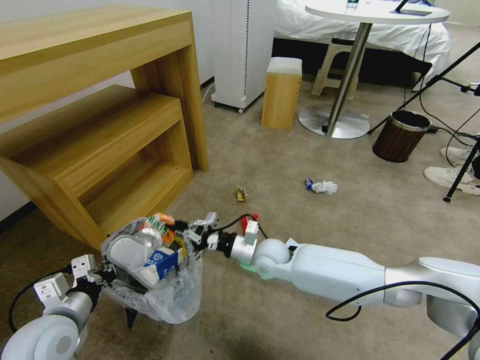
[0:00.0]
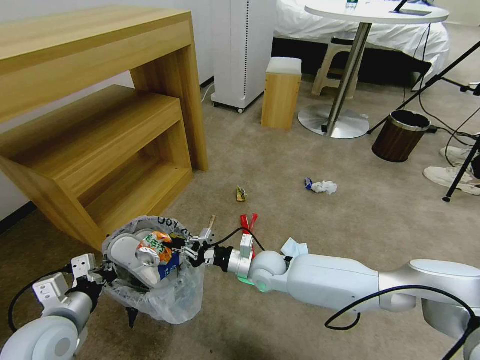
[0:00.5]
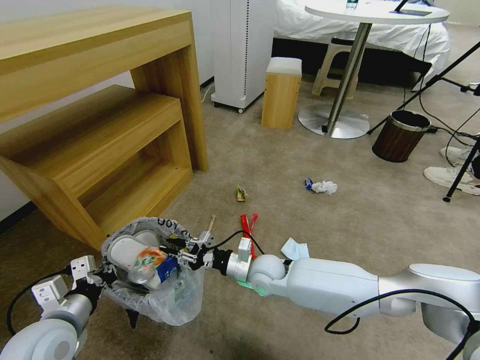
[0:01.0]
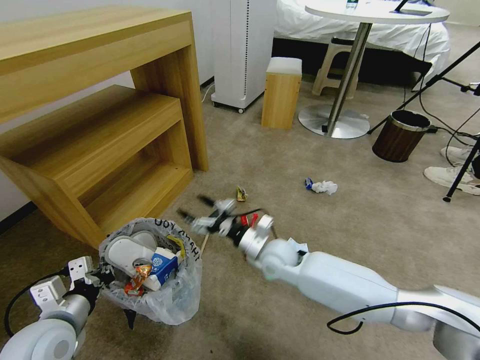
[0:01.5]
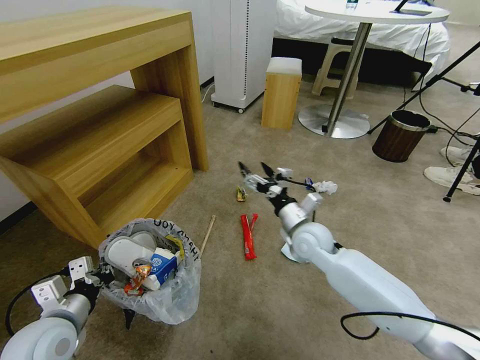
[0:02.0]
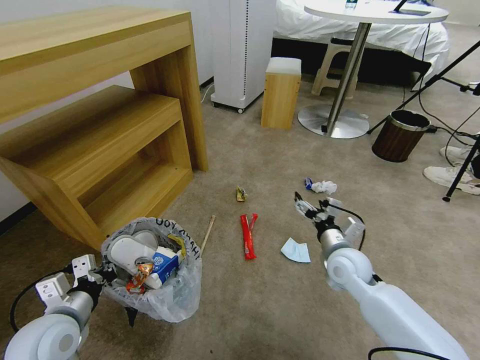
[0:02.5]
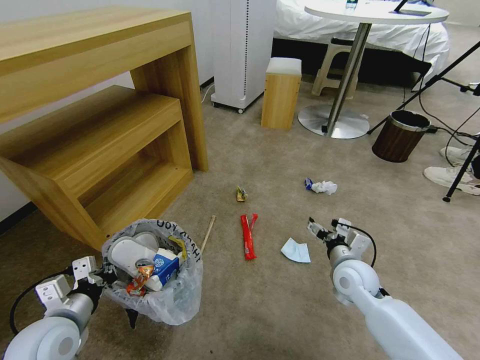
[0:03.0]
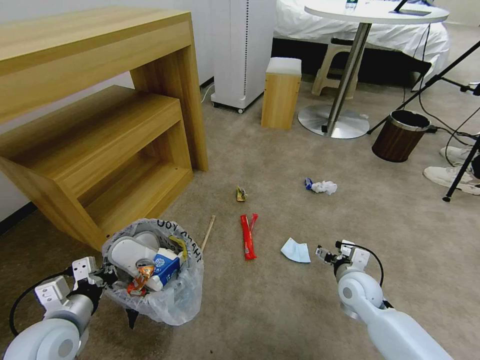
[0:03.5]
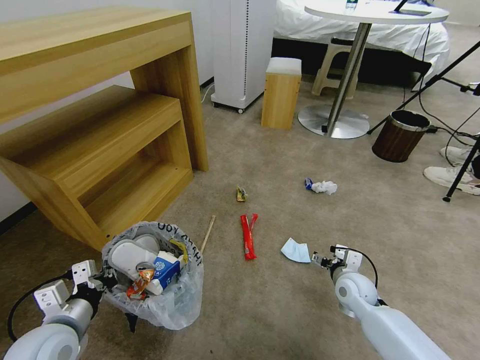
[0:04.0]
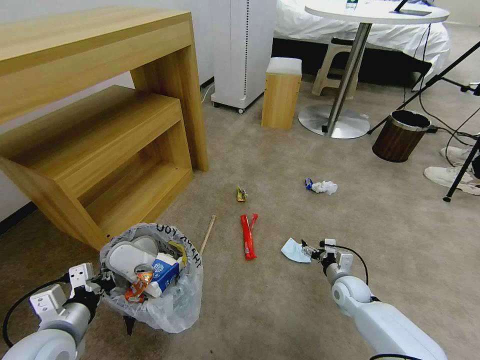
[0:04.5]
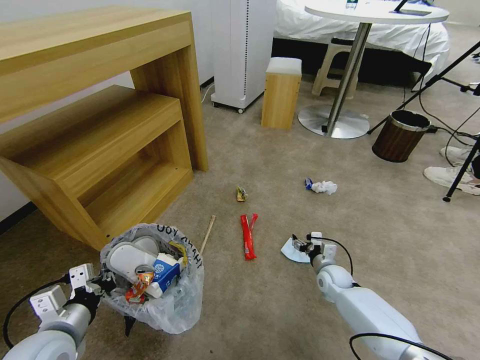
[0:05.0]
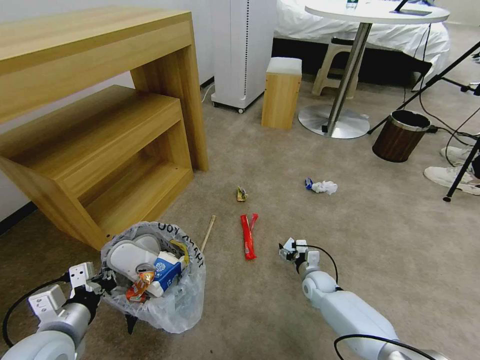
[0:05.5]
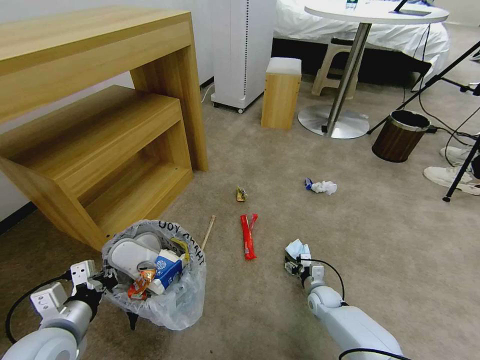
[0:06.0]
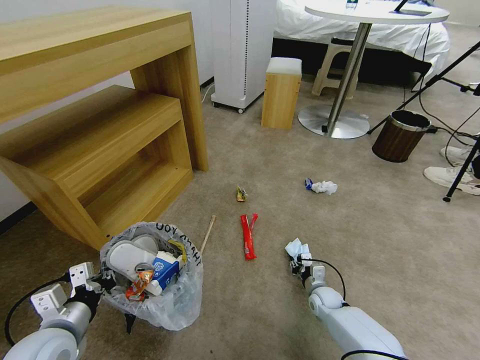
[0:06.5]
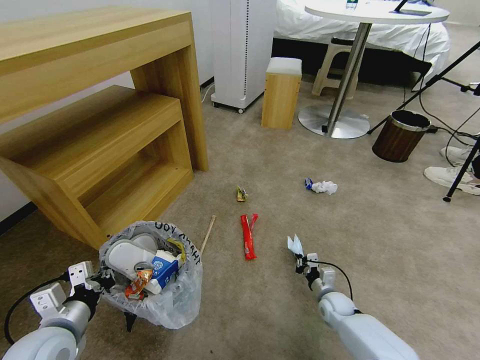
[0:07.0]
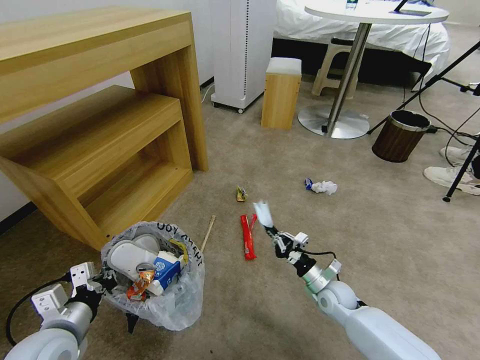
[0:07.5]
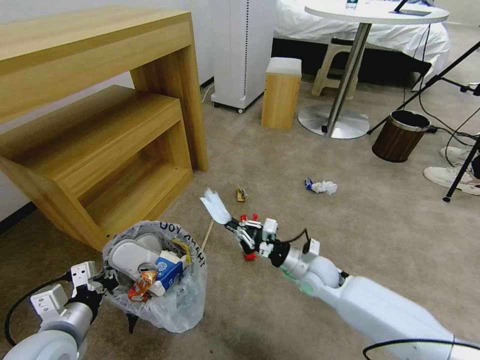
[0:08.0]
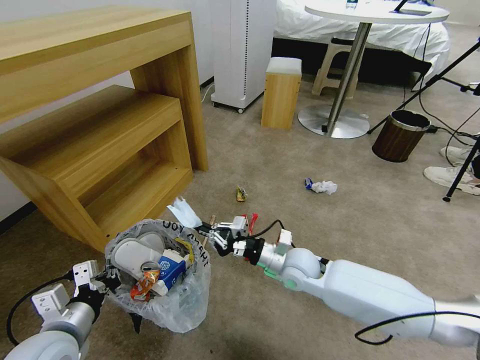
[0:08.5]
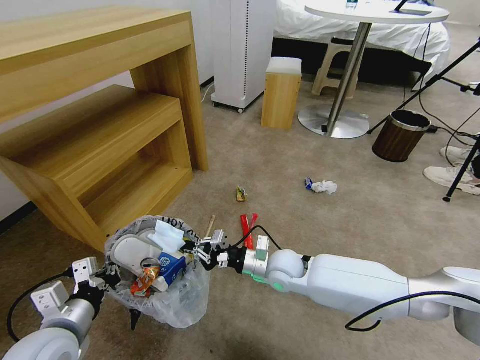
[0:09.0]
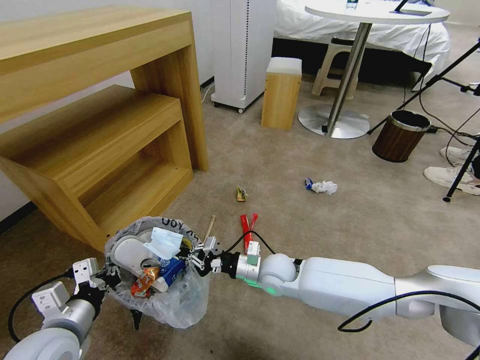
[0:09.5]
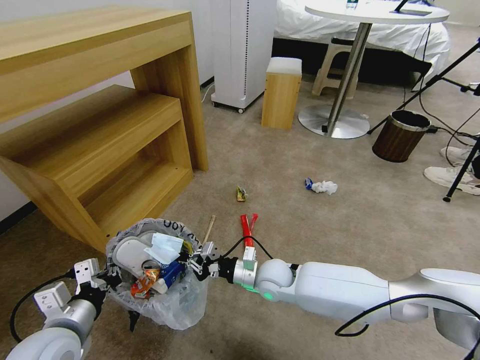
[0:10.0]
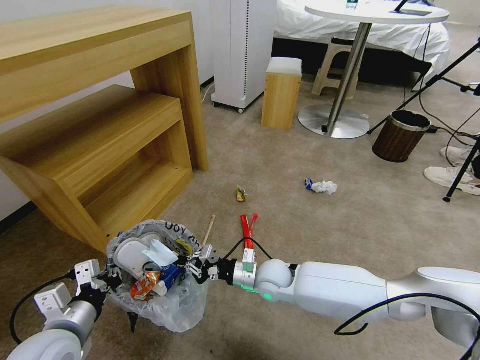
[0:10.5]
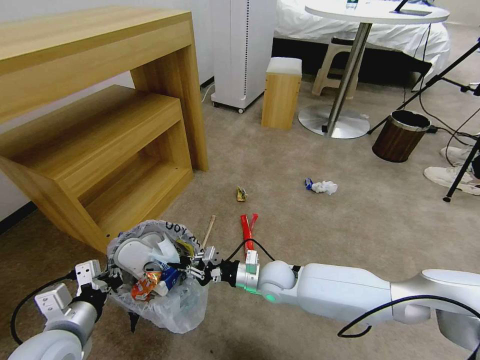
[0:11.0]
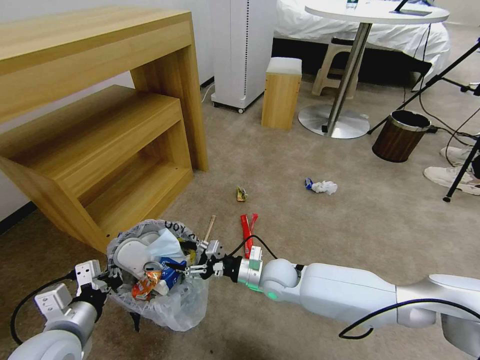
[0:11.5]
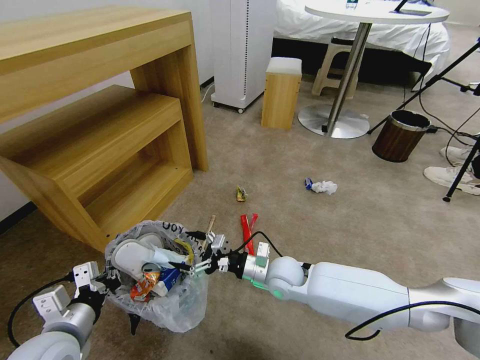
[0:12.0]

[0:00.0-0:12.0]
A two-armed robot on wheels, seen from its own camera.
Task of the whole recording: Pick up the trash bin and place the garbage on the floor into it.
0.0 to 2.0 s: The right gripper heads to the right and upward, covering about 10 cm, and opens up.
2.0 to 4.0 s: The right gripper is displaced downward, to the right and backward by approximately 20 cm.
4.0 to 6.0 s: The right gripper shifts some 15 cm downward.
6.0 to 8.0 s: The right gripper goes approximately 15 cm upward, and closes its fingers.
8.0 to 10.0 s: The right gripper travels to the left by some 10 cm.
10.0 to 12.0 s: The right gripper opens up.

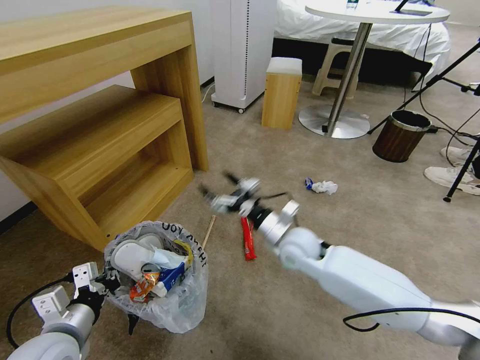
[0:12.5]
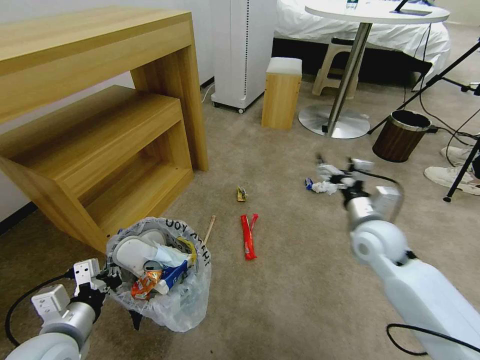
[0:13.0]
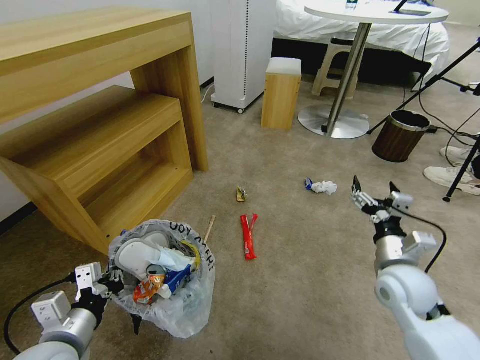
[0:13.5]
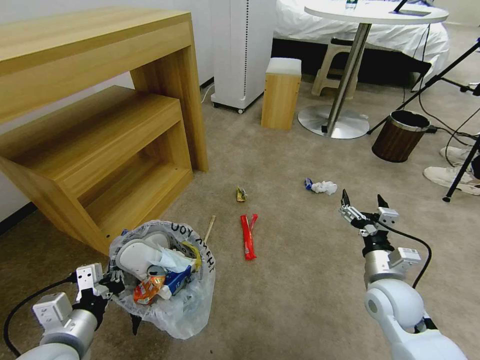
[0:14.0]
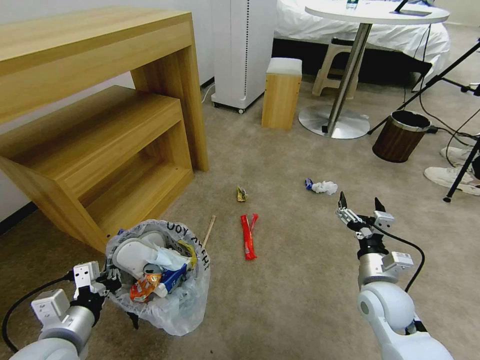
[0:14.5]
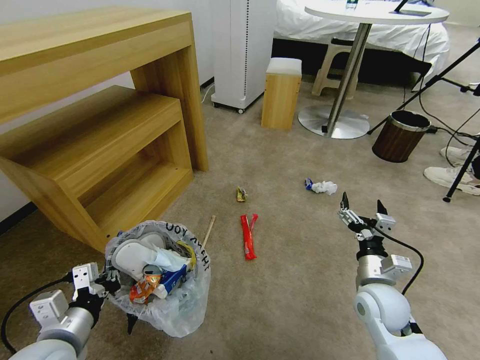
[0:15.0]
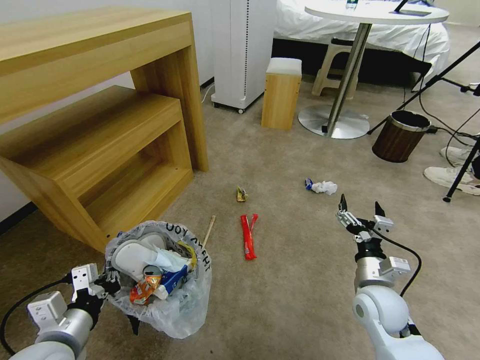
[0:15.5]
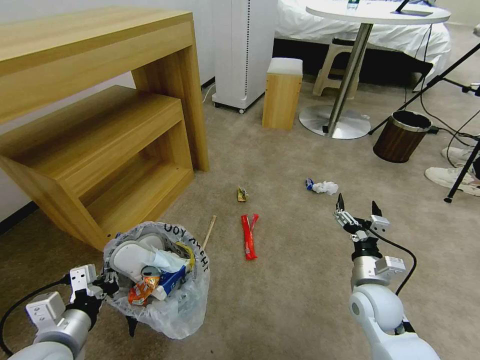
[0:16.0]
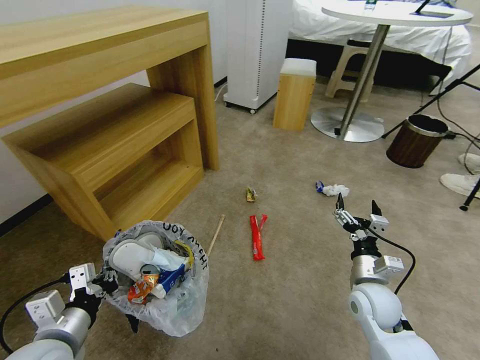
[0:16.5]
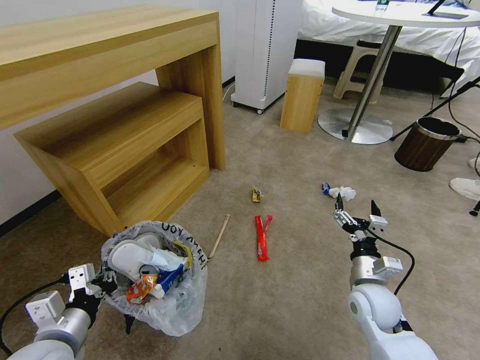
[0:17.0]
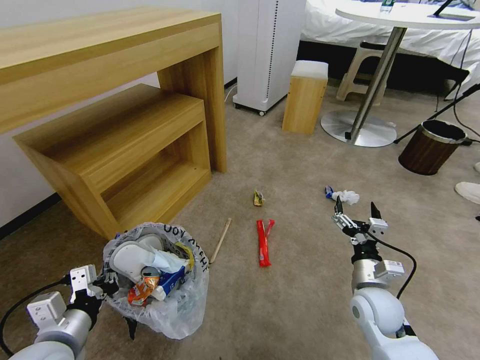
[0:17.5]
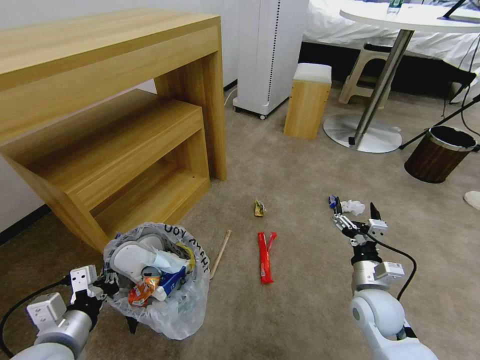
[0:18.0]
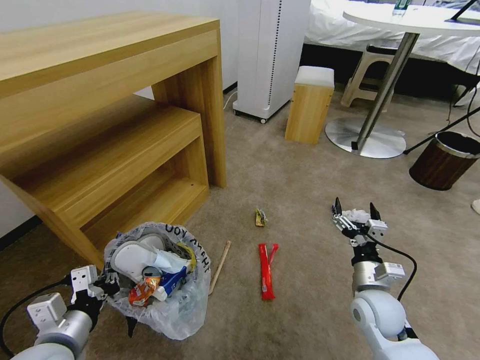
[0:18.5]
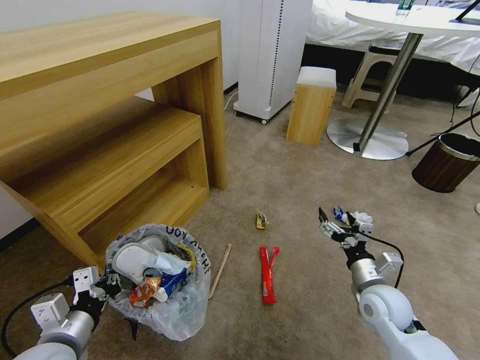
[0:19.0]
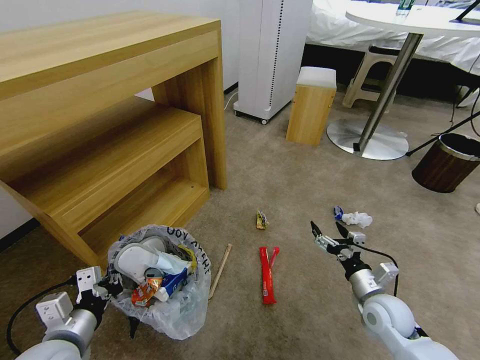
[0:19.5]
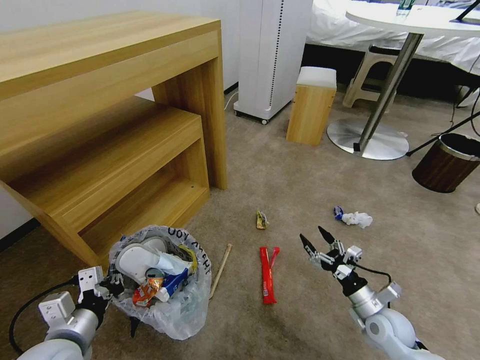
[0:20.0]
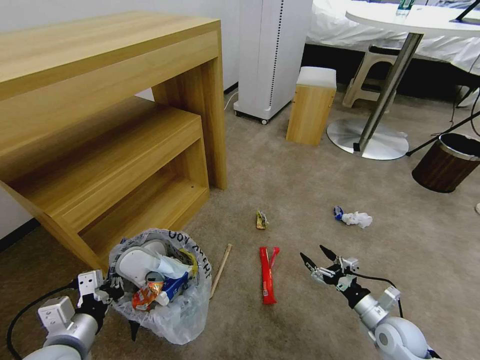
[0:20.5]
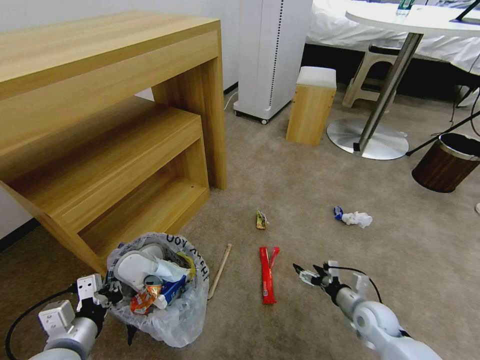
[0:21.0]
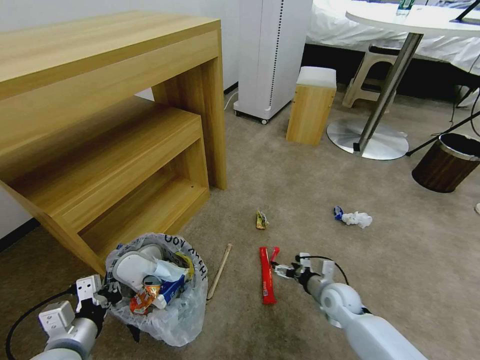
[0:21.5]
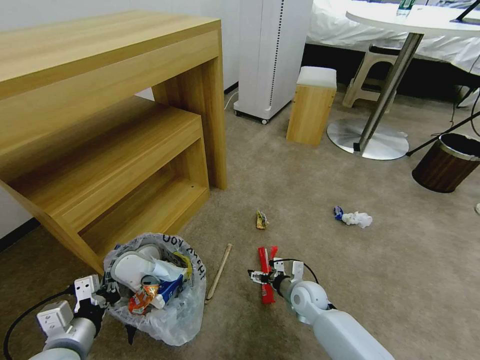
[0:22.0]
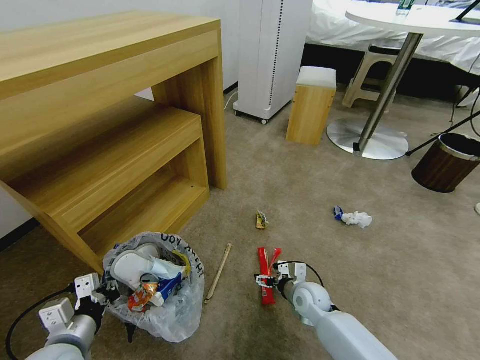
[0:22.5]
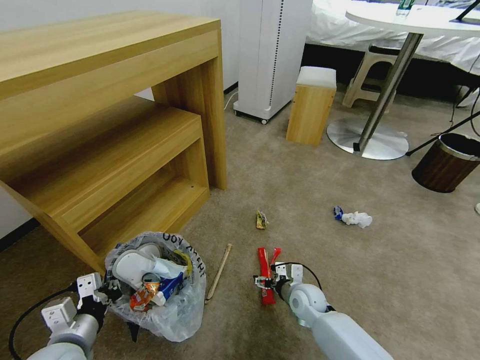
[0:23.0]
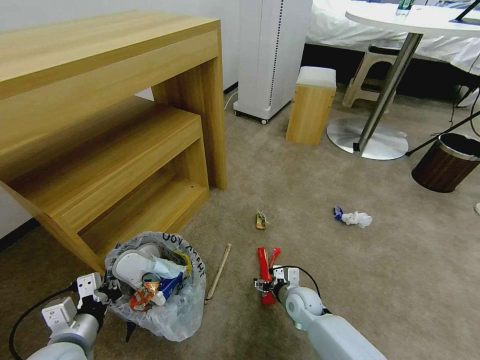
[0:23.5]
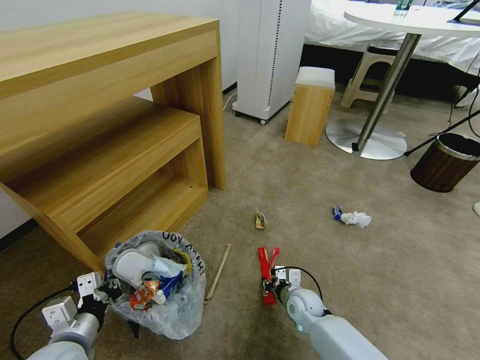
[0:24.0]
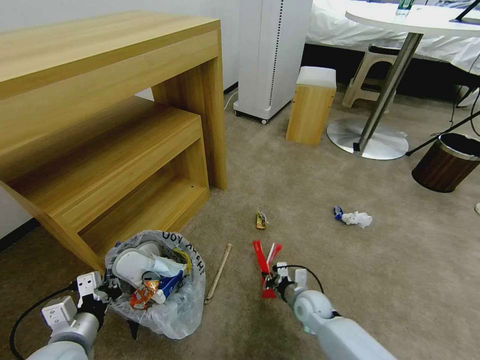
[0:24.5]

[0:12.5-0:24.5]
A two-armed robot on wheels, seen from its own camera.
Task of the whole recording: Pick up the trash bin and place the garbage on the floor into it.
12.5 to 14.5 s: The right gripper goes roughly 20 cm to the right and backward.
18.5 to 20.5 s: The right gripper shifts roughly 10 cm downward and to the right.
20.5 to 22.5 s: The right gripper moves to the left and forward, some 20 cm.
22.5 to 24.5 s: The right gripper closes.

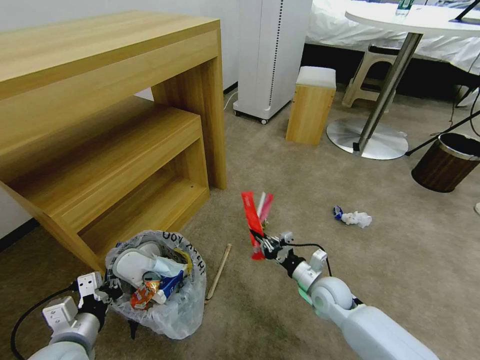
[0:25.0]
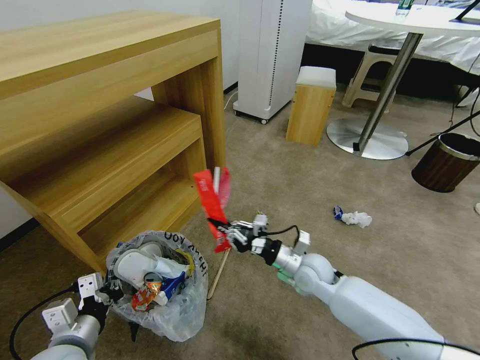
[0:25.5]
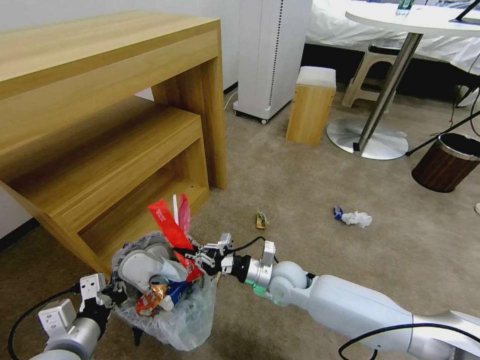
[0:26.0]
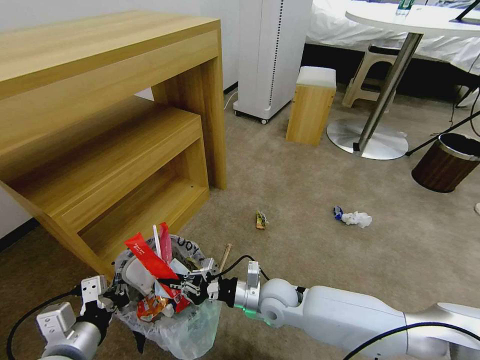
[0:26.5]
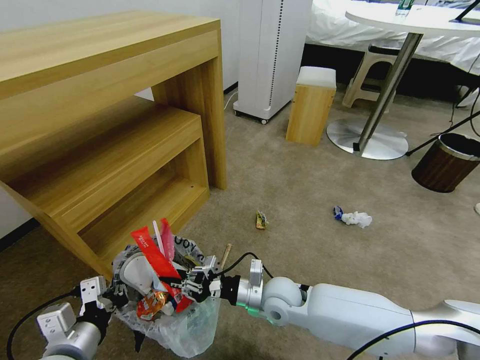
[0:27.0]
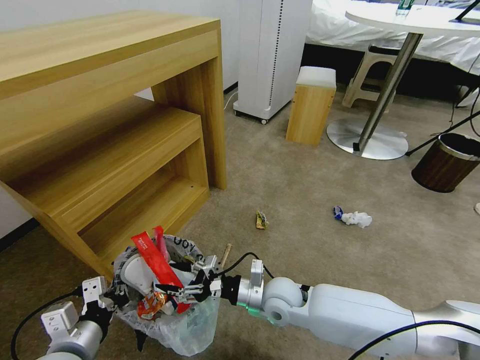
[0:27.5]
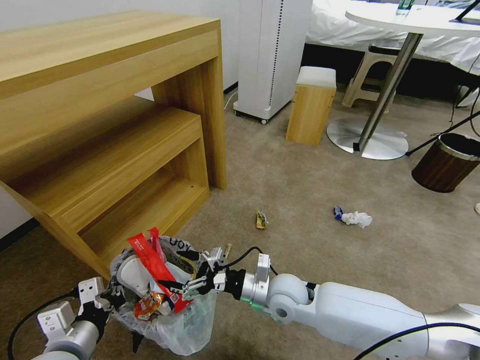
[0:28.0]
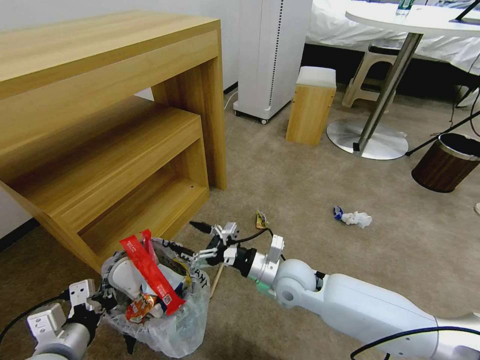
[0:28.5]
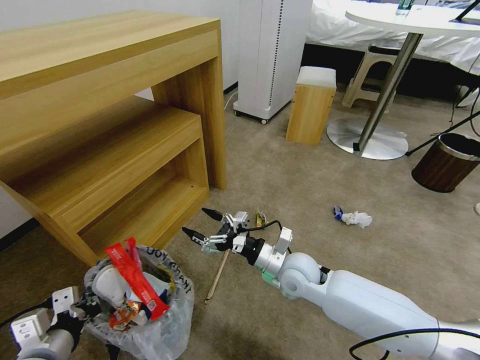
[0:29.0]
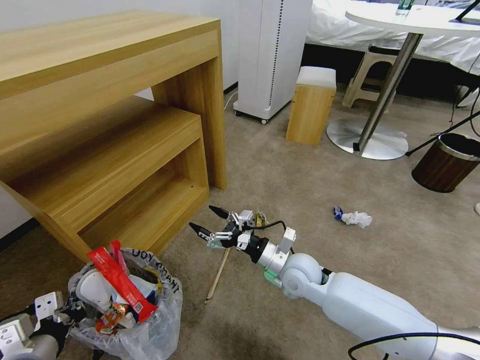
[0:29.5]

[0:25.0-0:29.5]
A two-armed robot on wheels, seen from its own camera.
Task of the whole recording: Pick up the trash bin and place the garbage on the floor into it.
25.0 to 27.0 s: The right gripper travels to the left by approximately 15 cm. The left gripper moves some 5 cm.
27.0 to 29.5 s: The right gripper changes place by approximately 5 cm, and opens. Meanwhile the left gripper shifts about 5 cm to the left.
